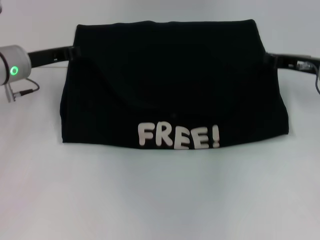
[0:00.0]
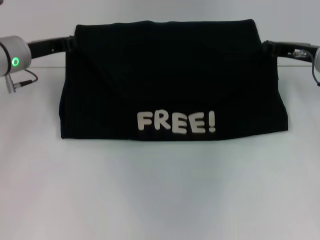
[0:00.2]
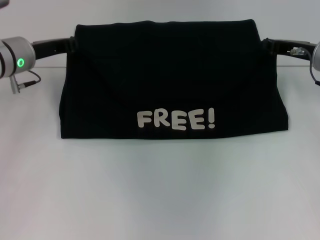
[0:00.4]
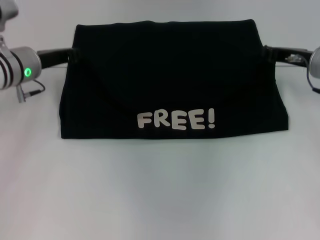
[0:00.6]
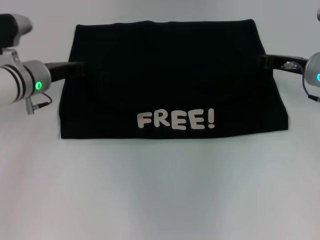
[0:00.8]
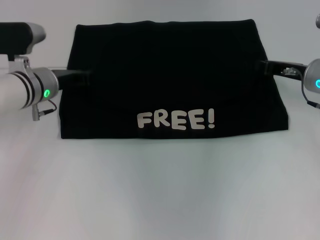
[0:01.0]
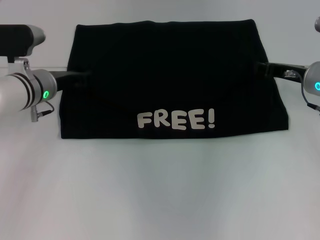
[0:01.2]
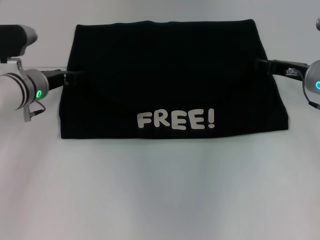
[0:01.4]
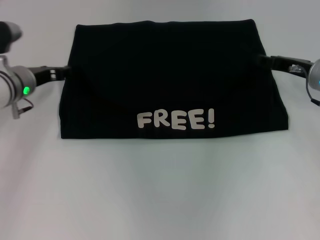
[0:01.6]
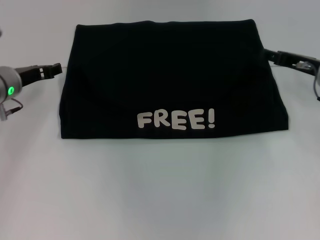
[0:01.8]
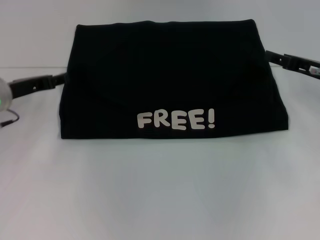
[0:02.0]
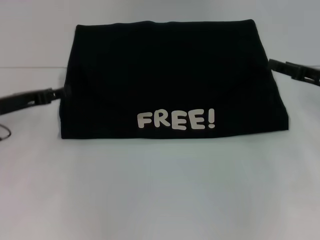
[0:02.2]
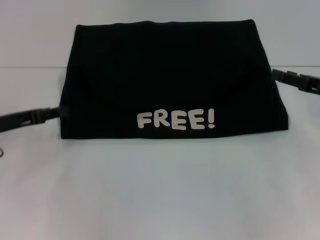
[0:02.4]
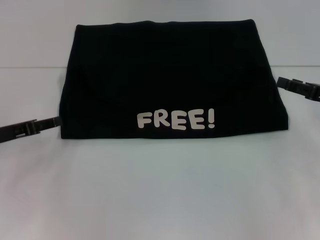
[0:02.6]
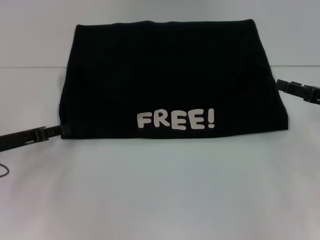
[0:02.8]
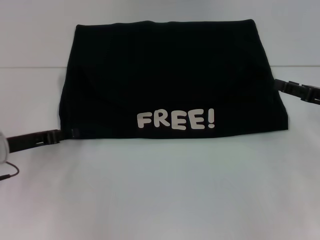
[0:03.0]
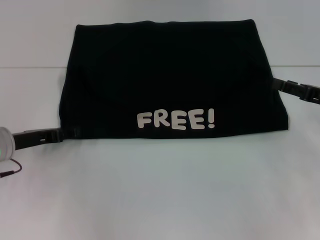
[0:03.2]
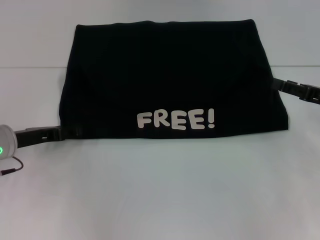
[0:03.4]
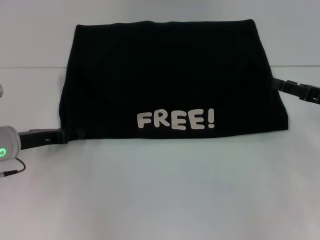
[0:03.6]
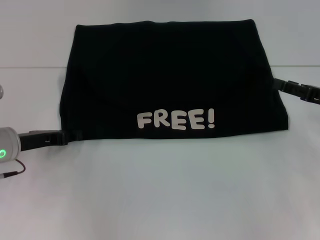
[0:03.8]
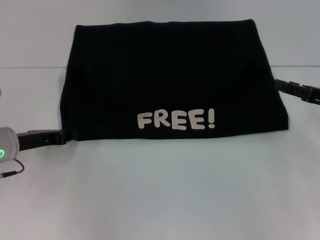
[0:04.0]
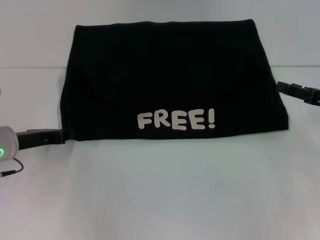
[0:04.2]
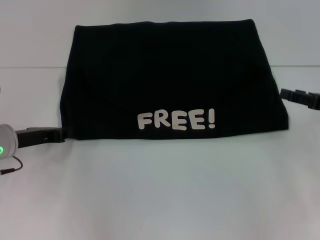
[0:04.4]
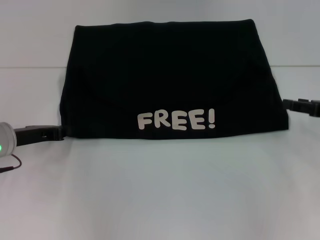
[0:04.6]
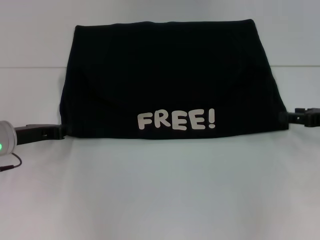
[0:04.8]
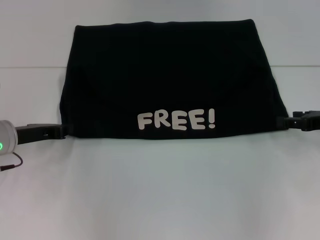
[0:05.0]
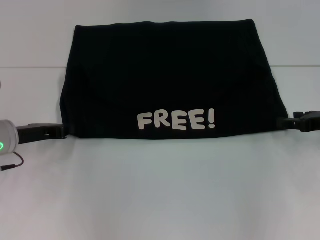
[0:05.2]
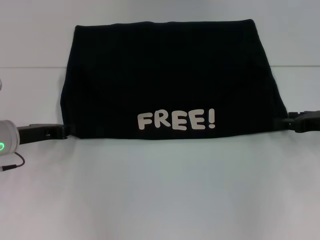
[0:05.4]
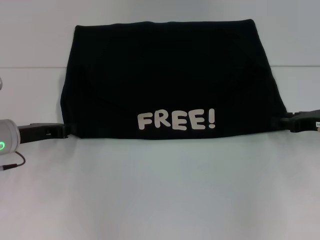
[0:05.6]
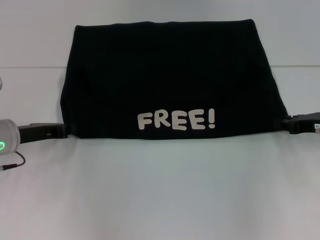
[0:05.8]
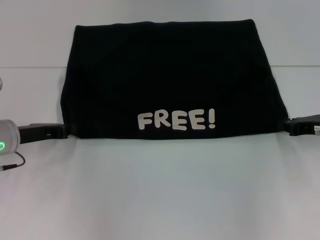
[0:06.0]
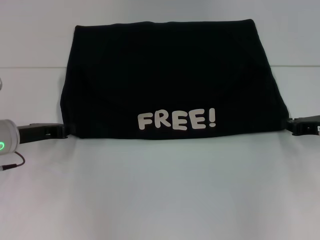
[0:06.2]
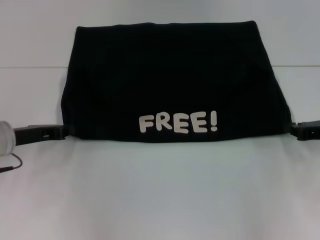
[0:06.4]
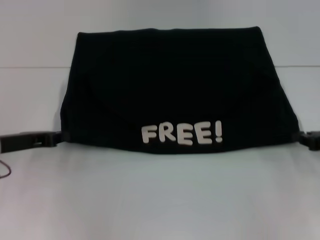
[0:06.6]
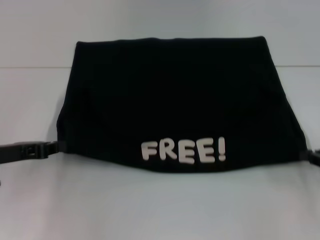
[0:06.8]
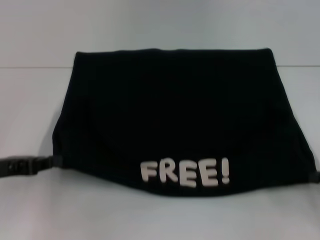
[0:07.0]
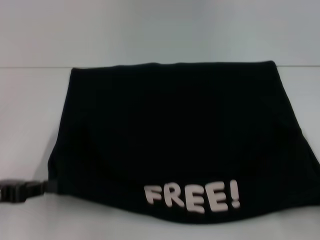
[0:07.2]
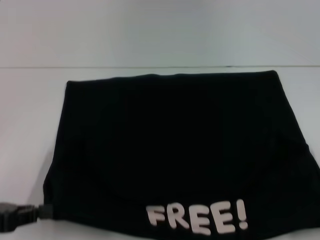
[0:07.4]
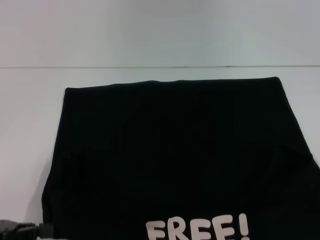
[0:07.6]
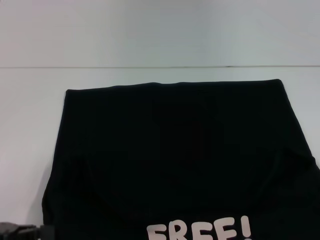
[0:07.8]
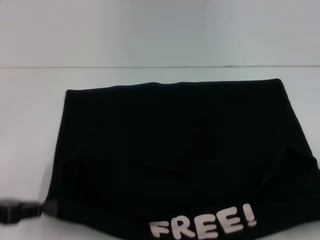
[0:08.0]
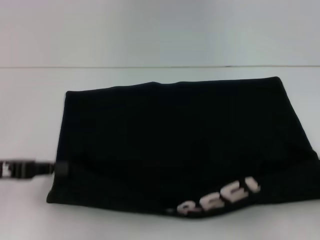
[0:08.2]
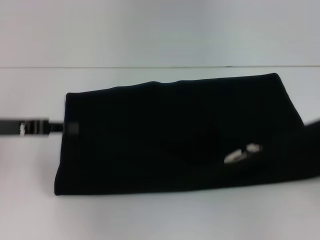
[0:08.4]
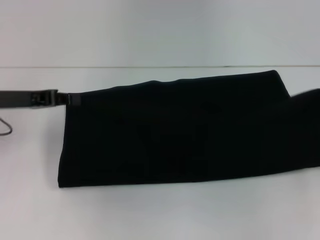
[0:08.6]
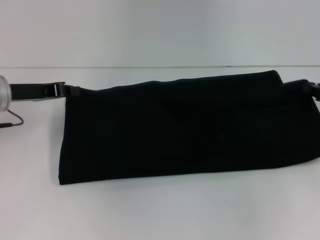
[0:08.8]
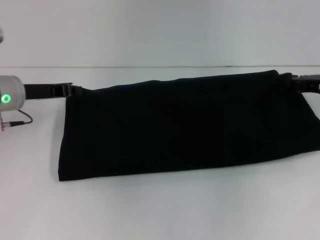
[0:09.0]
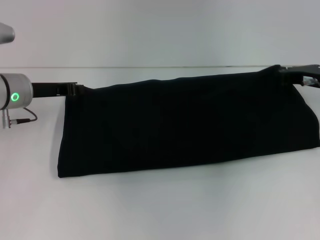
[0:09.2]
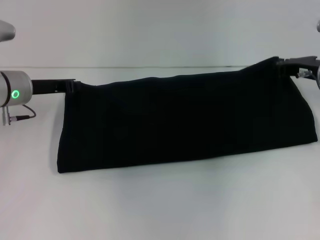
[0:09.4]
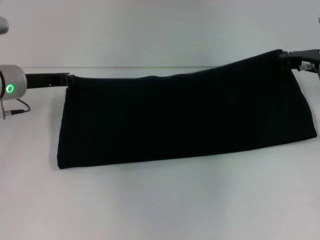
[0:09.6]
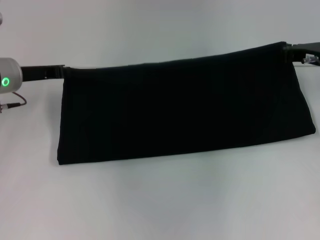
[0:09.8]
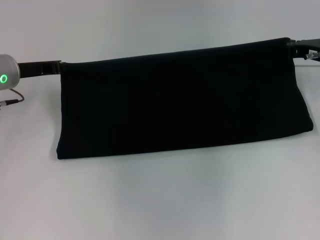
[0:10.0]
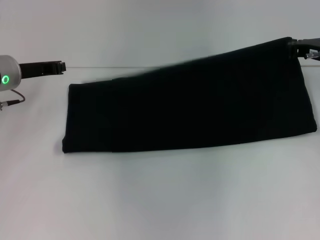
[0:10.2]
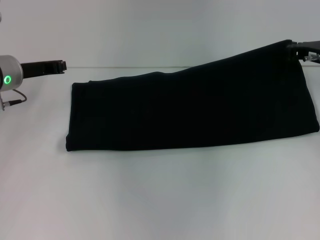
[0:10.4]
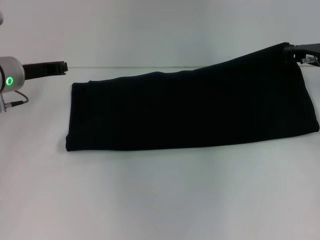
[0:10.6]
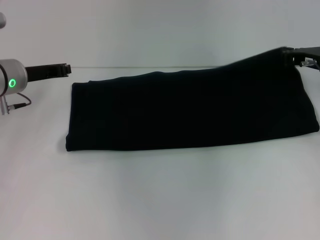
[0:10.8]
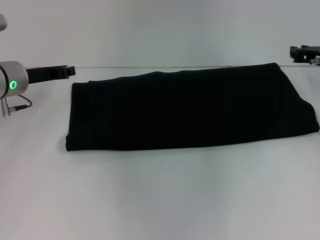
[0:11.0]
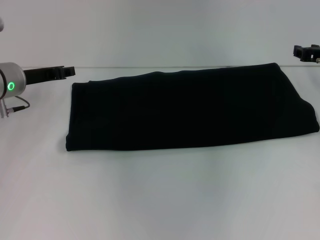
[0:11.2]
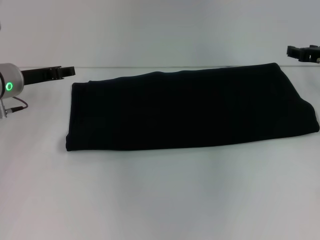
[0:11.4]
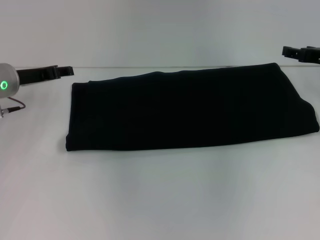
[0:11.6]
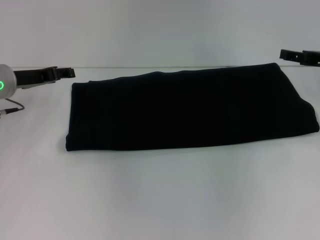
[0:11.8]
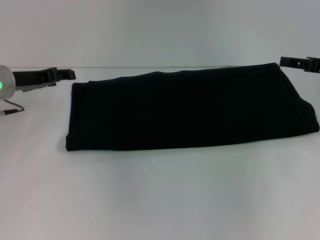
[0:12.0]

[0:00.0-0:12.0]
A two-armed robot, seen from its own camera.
Step, 0:01.4 to 0:07.8: Pull the clothes with your left hand.
Step, 0:01.4 to 0:07.8: Pull the clothes with your right hand.
Step, 0:08.0 to 0:11.0: Fold the clothes with your right hand.
0:00.0 to 0:01.6: The right gripper opens up, while the left gripper opens.
0:01.6 to 0:03.0: The left gripper moves backward, roughly 10 cm. The right gripper goes approximately 10 cm backward and to the right.
0:03.0 to 0:04.4: The left gripper closes its fingers.
0:04.4 to 0:06.0: The right gripper closes.
0:06.0 to 0:07.6: The left gripper goes approximately 15 cm backward. Meanwhile the right gripper moves backward and to the right, about 25 cm.
0:07.6 to 0:09.0: Both grippers move forward, roughly 25 cm.
0:09.0 to 0:10.4: The right gripper ends up roughly 5 cm from where it was.
0:10.4 to 0:12.0: The left gripper opens, while the right gripper moves roughly 5 cm, and opens its fingers.

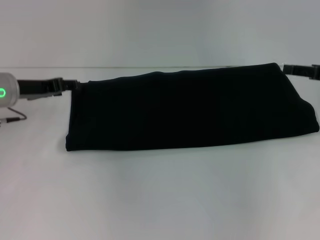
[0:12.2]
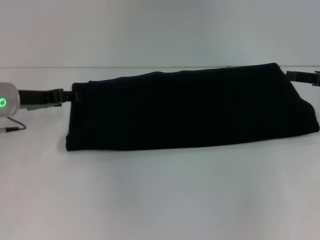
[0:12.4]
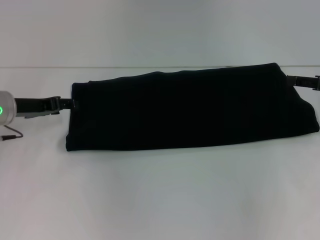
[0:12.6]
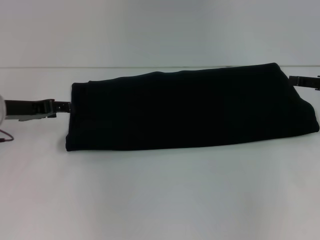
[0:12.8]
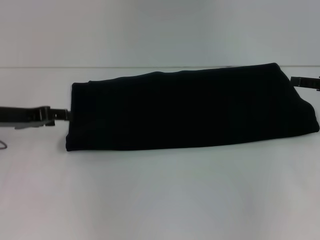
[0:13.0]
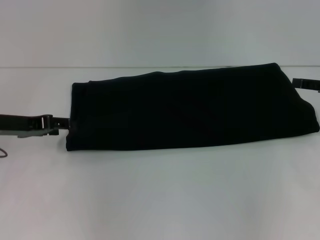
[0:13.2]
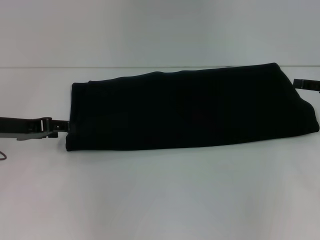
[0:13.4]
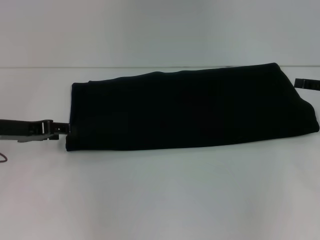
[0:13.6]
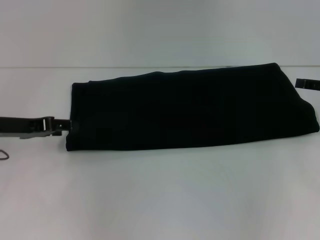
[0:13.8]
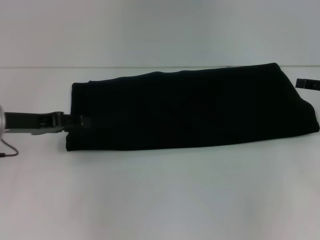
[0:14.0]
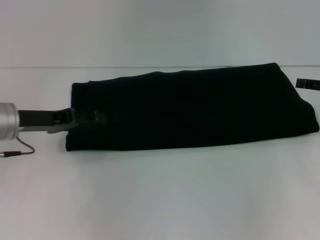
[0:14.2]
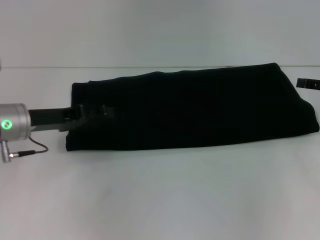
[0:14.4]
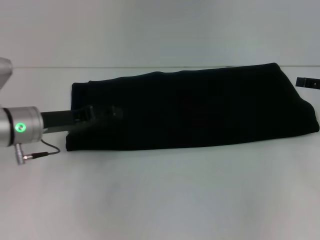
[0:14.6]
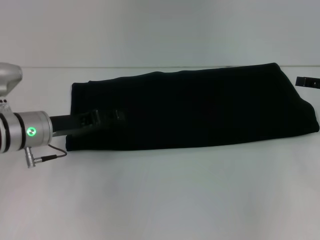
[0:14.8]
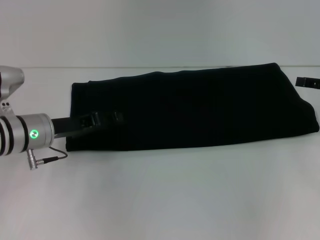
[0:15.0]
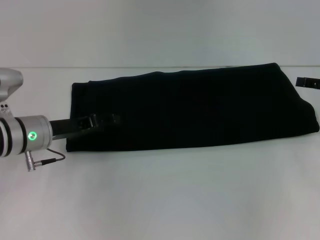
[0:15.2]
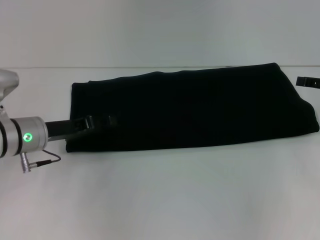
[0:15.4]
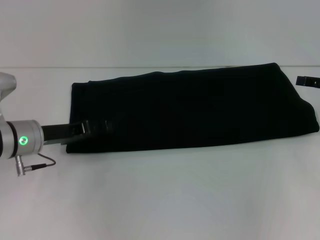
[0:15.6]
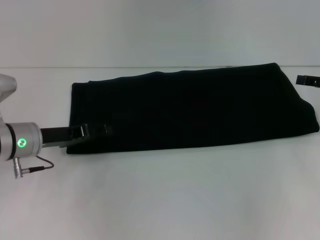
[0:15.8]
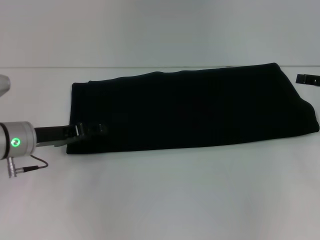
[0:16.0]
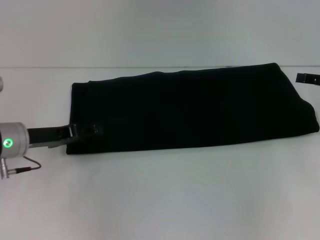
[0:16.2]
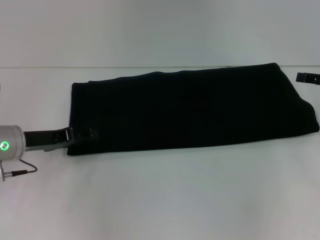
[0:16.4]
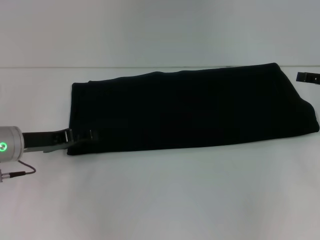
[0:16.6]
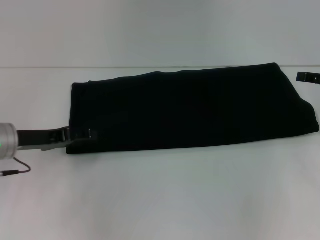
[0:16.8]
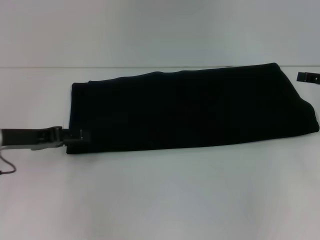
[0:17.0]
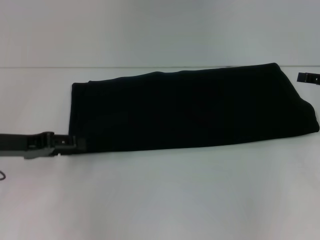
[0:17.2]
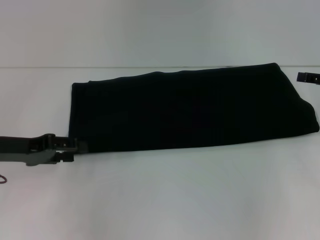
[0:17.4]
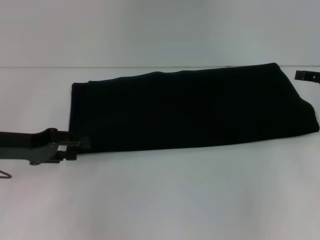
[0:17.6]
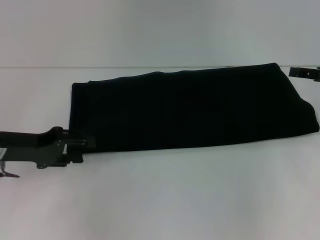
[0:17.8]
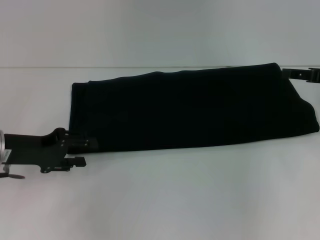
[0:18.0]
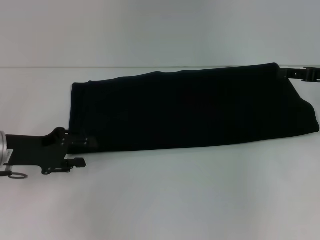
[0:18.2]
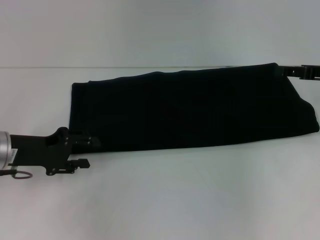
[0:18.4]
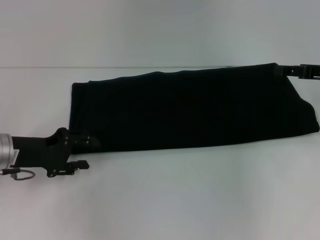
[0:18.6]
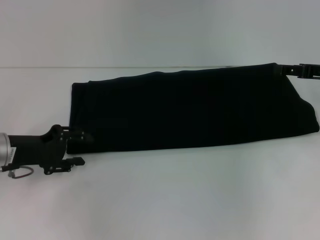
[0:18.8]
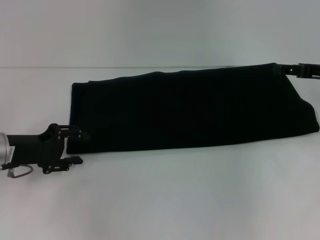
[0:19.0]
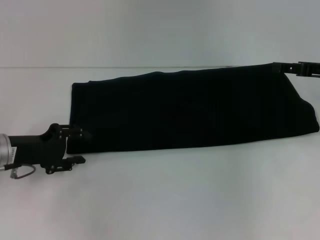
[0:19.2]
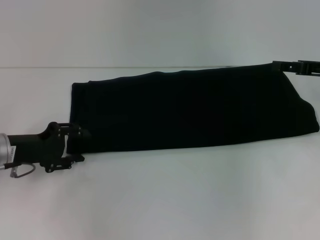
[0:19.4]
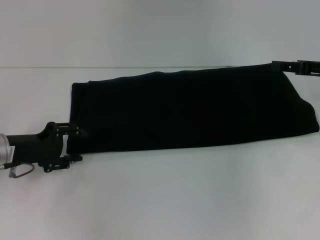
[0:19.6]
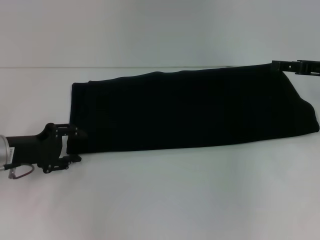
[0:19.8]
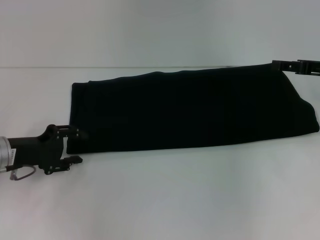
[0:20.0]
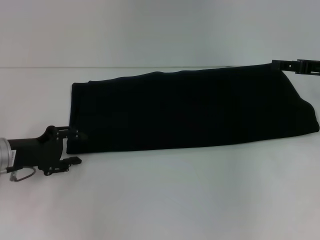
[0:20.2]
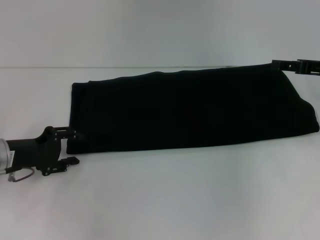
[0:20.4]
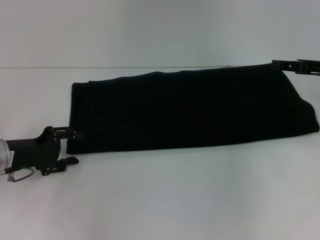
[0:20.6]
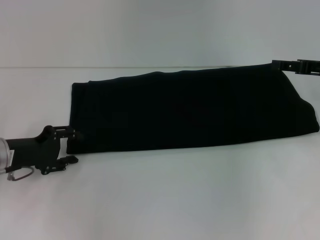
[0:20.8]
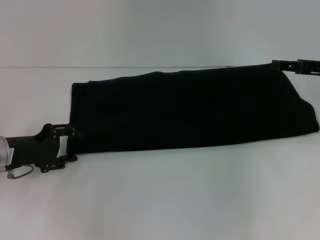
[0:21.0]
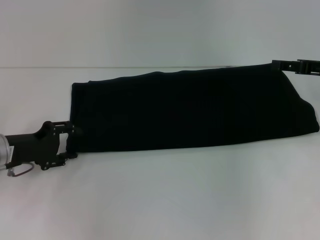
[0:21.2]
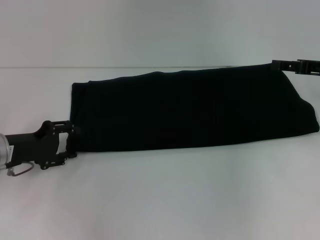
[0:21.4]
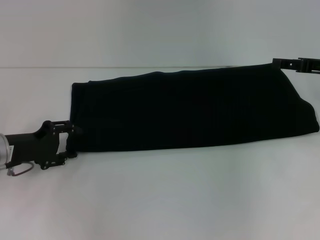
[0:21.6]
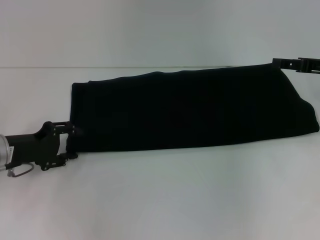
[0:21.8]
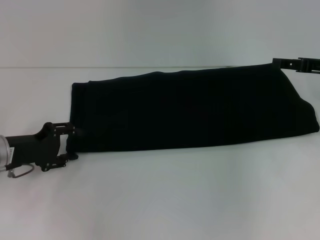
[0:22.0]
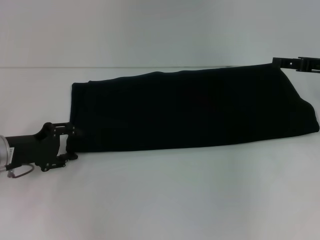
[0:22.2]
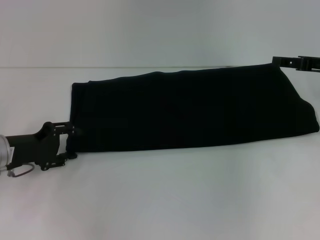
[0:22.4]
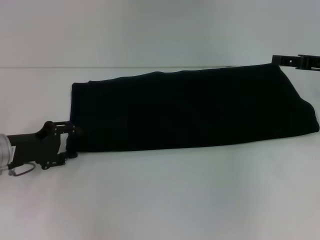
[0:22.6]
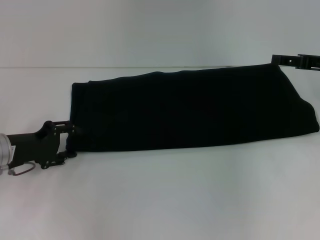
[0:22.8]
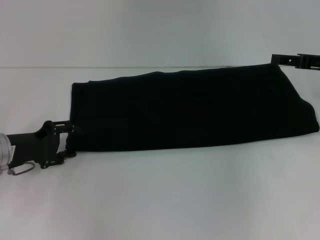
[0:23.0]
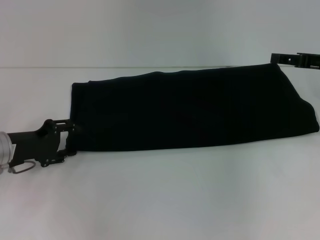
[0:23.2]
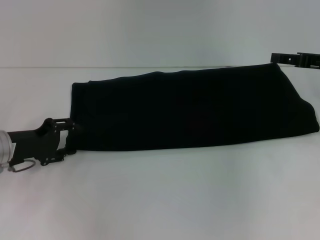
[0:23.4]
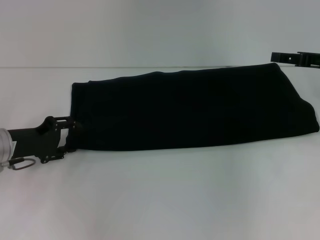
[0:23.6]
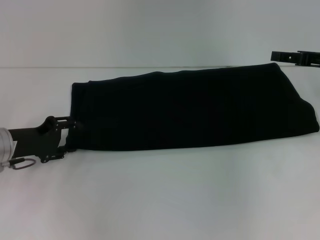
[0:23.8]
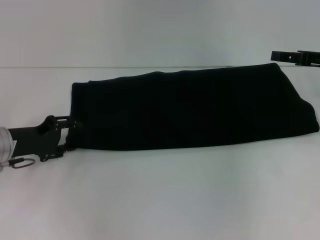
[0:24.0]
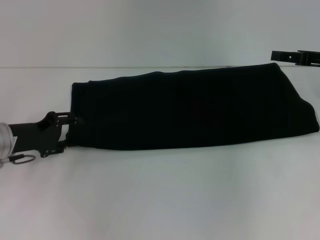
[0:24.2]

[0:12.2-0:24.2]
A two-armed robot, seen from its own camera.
0:12.2 to 0:13.8: The left gripper is displaced backward by approximately 5 cm.
0:13.8 to 0:15.2: The left gripper heads to the right, covering some 5 cm.
0:15.2 to 0:16.6: The grippers make only small movements.
0:19.8 to 0:22.6: Neither gripper changes place.
0:22.6 to 0:24.2: The grippers stay close to where they were, moving slightly.
